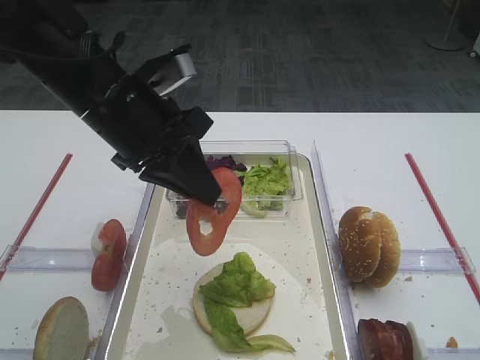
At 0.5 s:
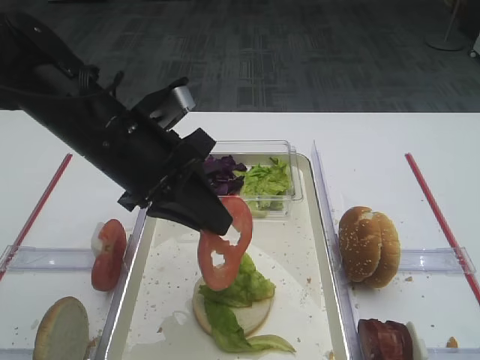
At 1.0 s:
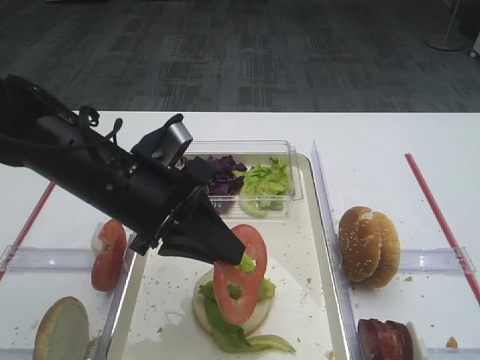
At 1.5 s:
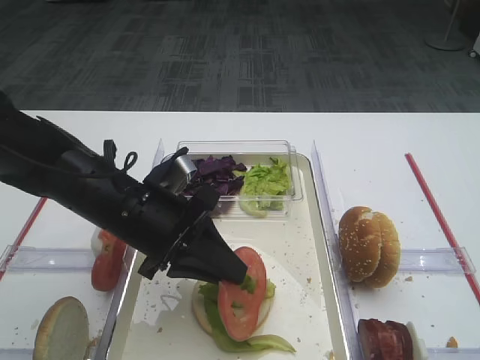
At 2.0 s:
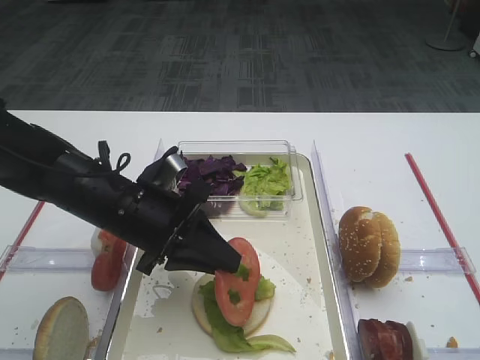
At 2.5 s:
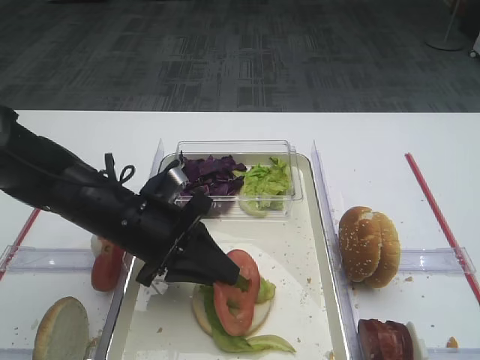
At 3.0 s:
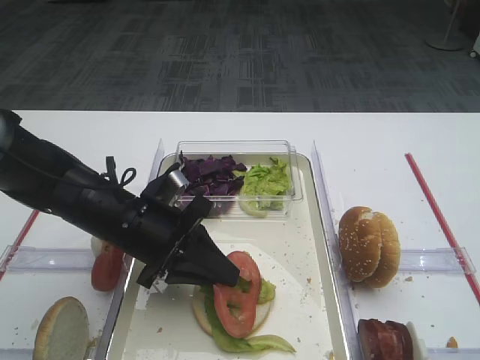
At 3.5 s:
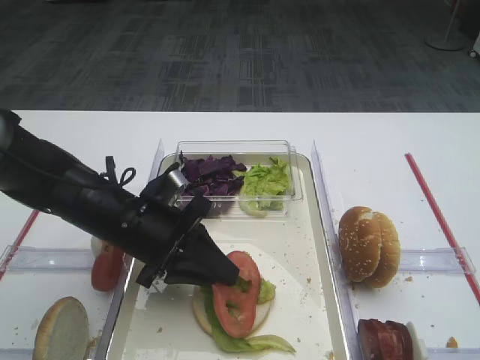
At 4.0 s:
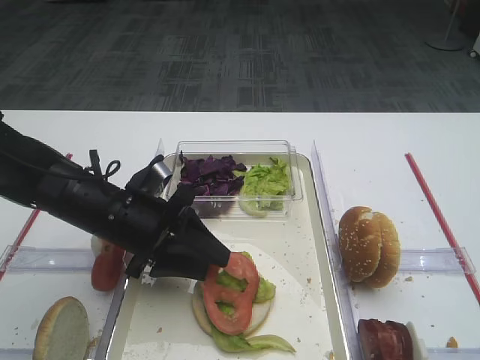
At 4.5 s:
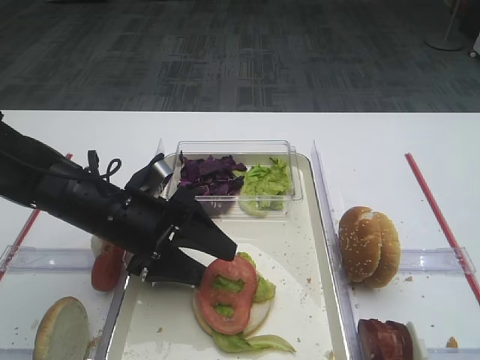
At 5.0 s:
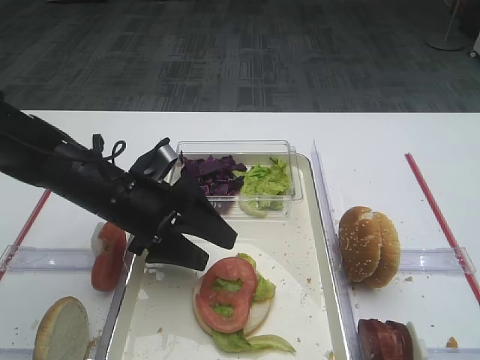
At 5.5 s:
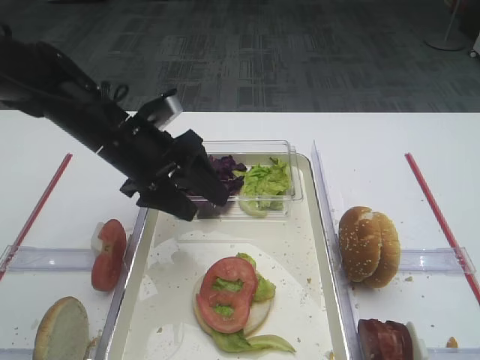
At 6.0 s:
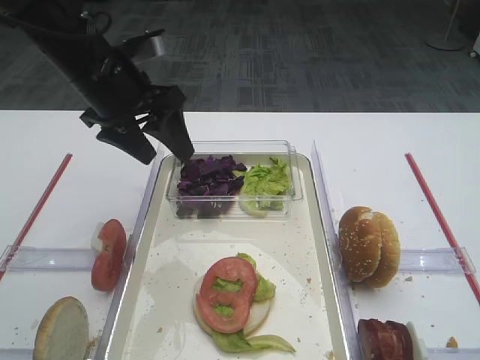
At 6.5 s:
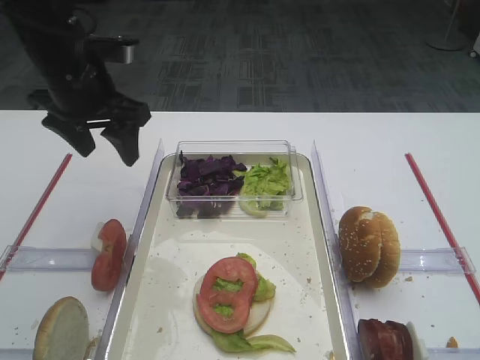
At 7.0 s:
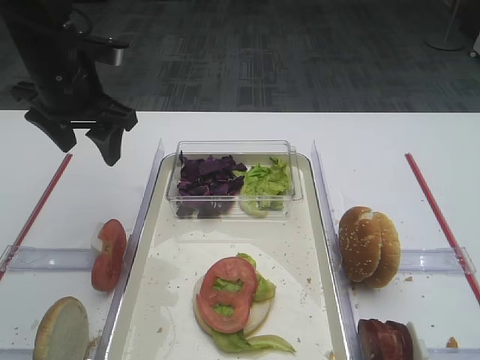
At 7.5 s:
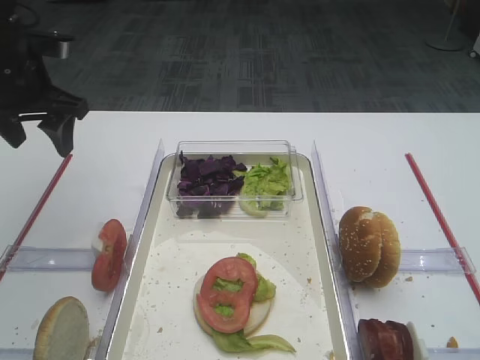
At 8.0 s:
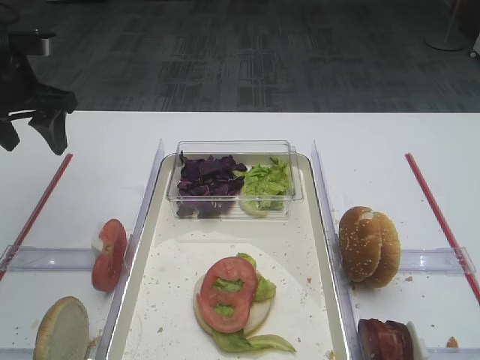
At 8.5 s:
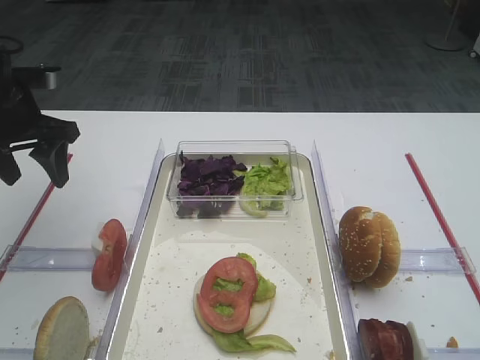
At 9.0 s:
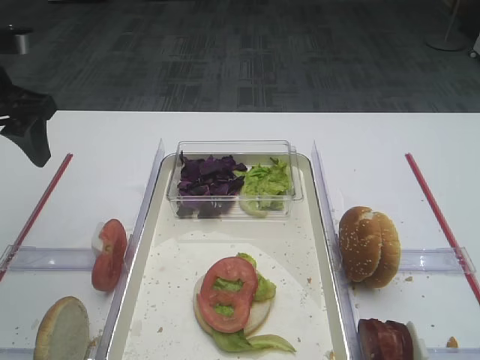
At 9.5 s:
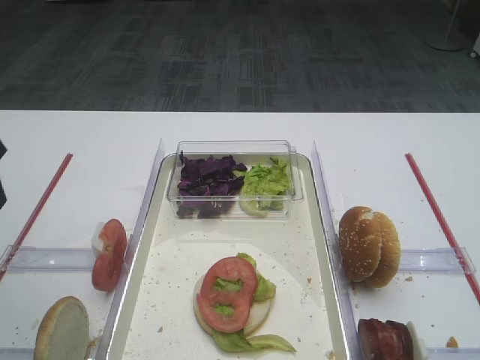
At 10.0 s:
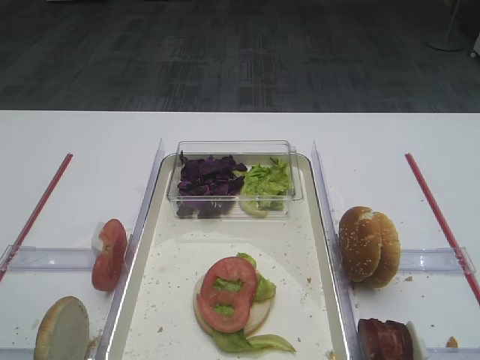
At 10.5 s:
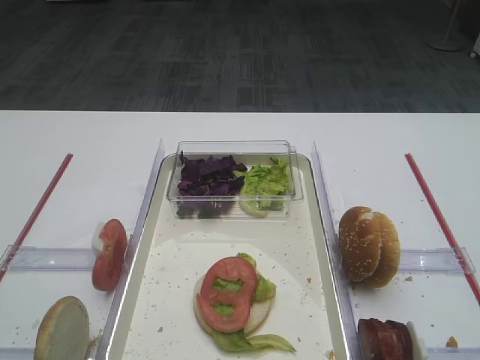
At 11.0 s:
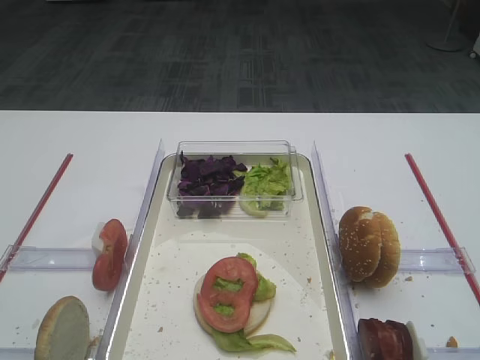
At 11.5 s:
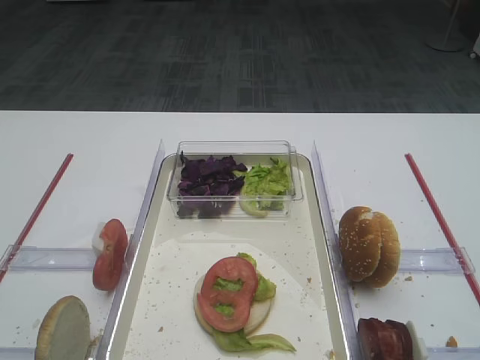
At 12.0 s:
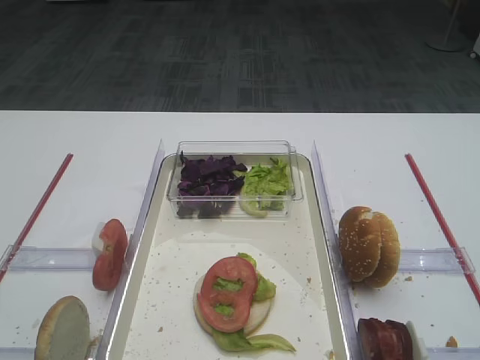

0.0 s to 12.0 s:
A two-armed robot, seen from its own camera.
Step, 0.0 to 4.5 s: Place the tomato slice on the lettuce leaf with the left gripper.
0.0 to 2.0 s: The left gripper moves downward, about 10 cm.
2.0 to 4.0 s: The left gripper opens its fingers.
4.0 to 6.0 s: The left gripper travels upward and forward by roughly 15 cm, and opens.
6.0 to 8.0 s: The left gripper travels to the left by approximately 10 cm.
8.0 to 10.0 s: The left gripper moves backward, about 30 cm.

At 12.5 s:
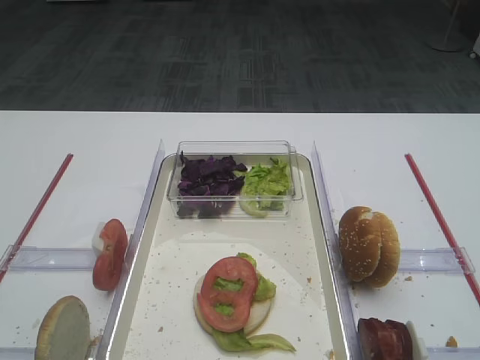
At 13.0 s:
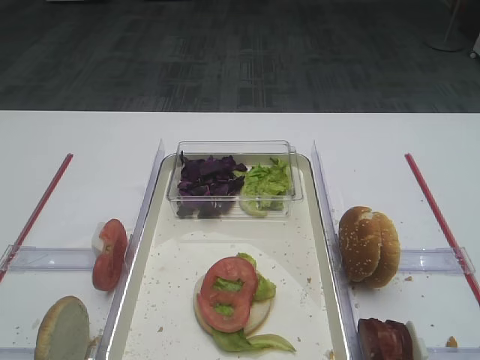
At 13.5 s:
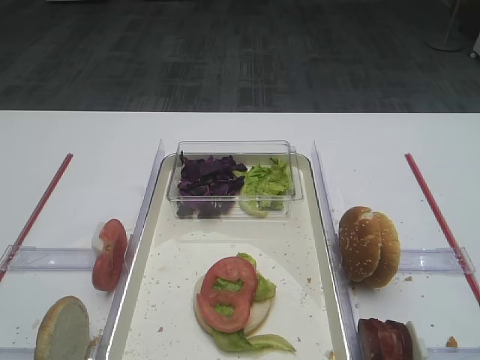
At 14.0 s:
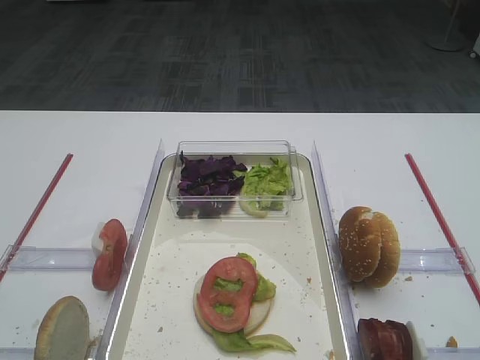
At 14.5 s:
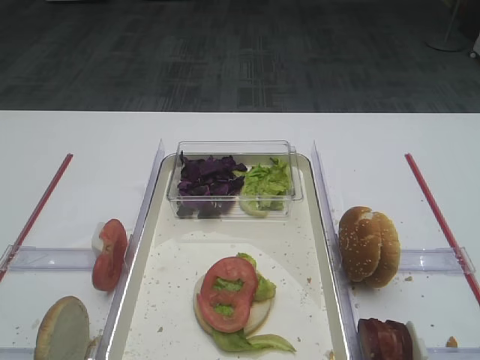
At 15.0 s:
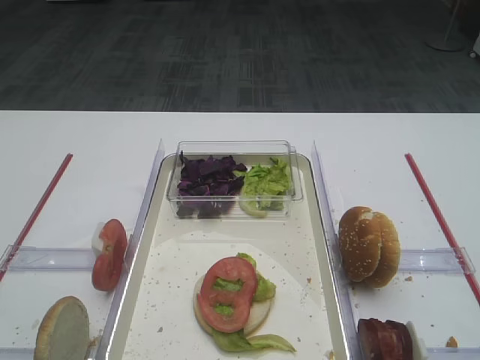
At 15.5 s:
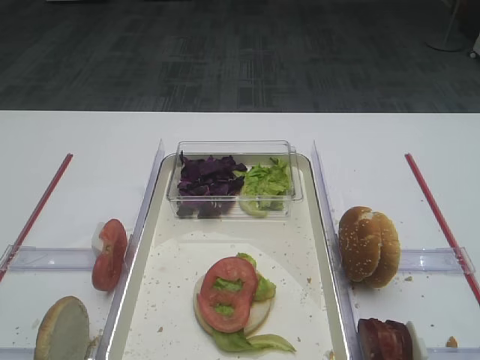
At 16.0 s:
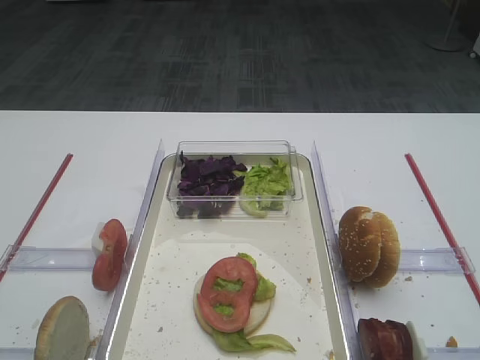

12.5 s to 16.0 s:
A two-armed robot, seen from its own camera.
12.5 to 16.0 s: Both grippers stay about where they are.

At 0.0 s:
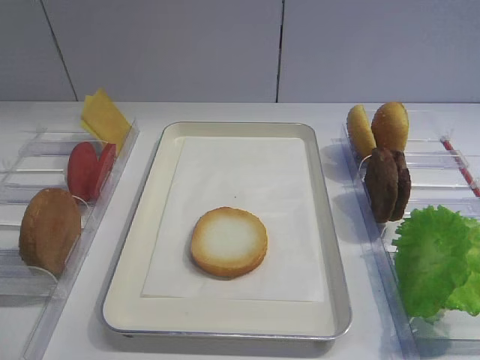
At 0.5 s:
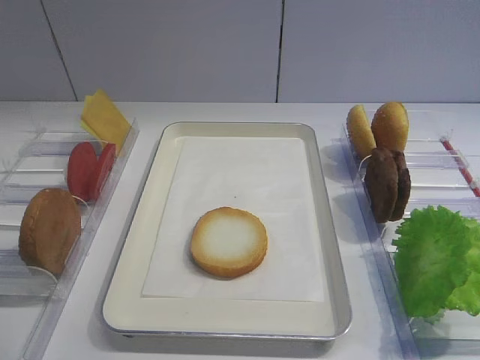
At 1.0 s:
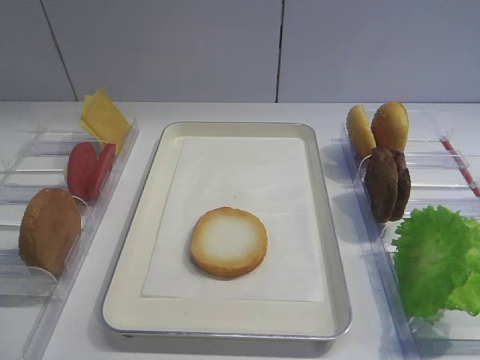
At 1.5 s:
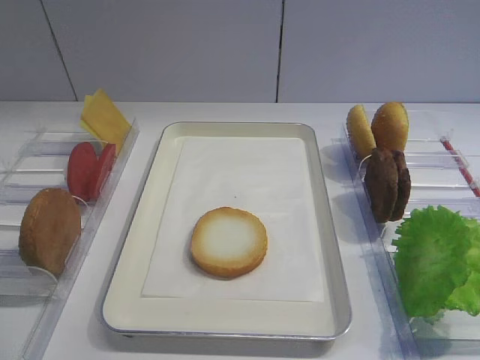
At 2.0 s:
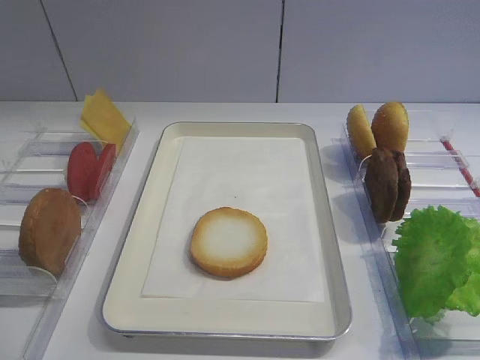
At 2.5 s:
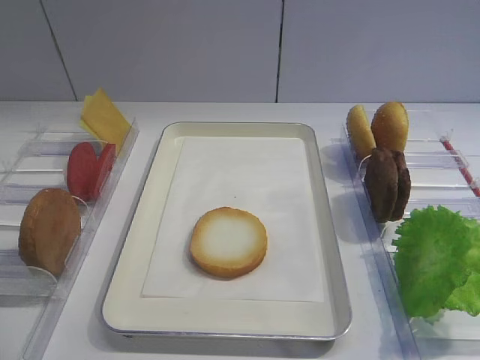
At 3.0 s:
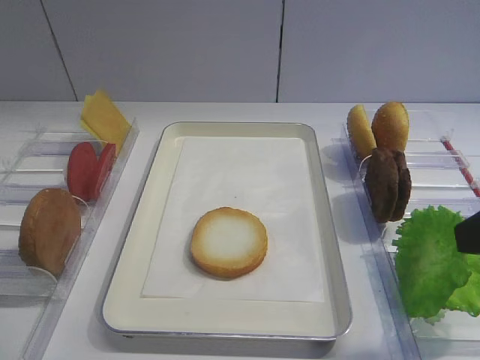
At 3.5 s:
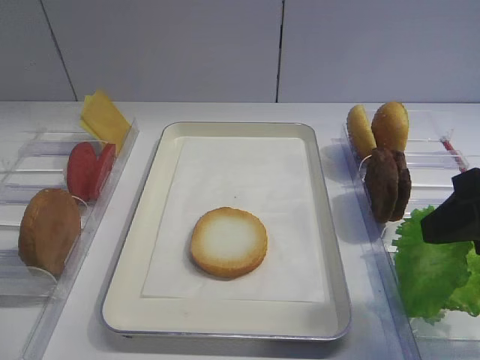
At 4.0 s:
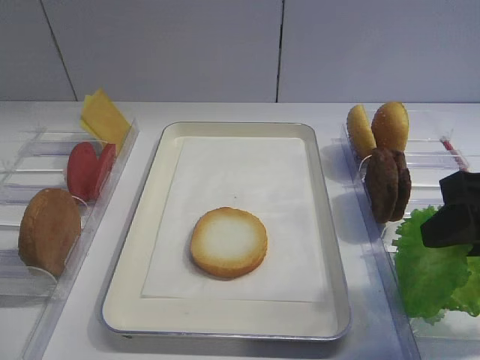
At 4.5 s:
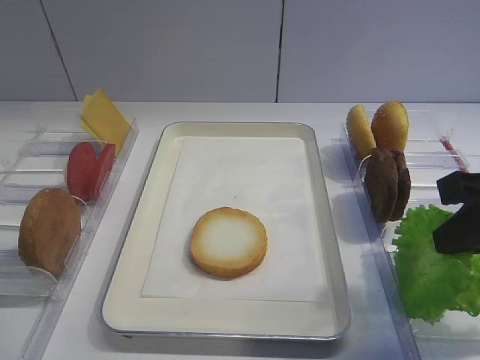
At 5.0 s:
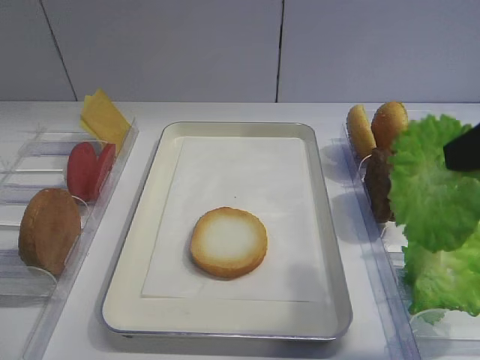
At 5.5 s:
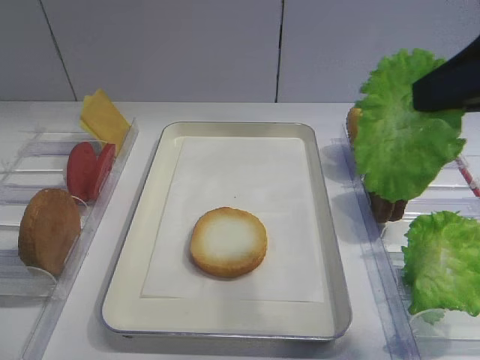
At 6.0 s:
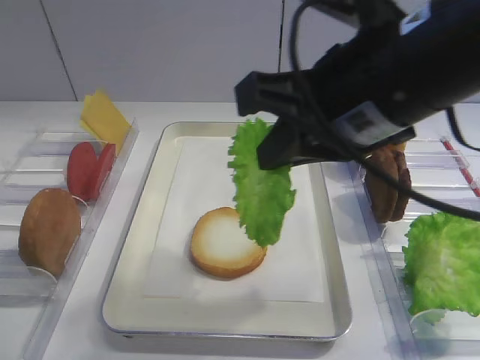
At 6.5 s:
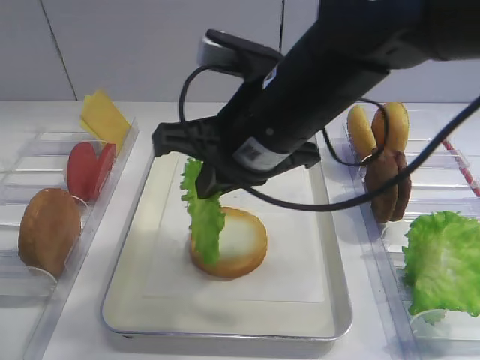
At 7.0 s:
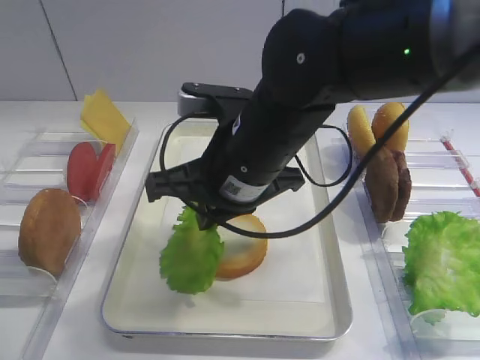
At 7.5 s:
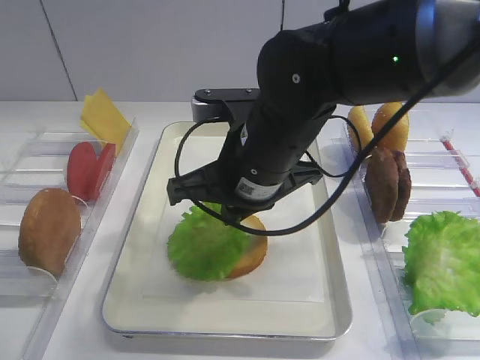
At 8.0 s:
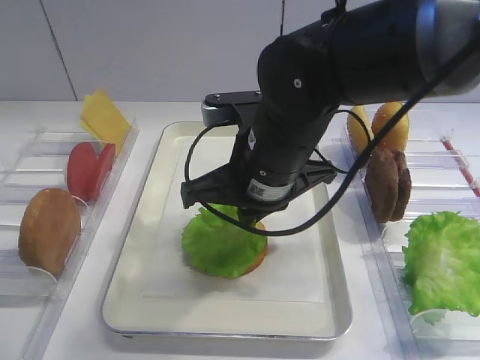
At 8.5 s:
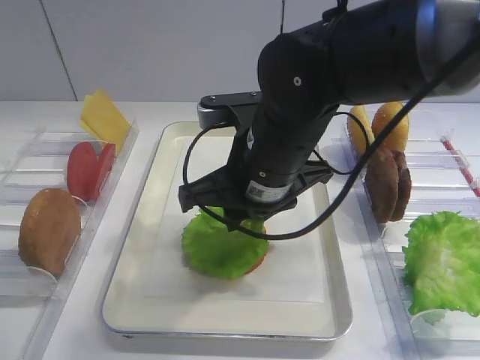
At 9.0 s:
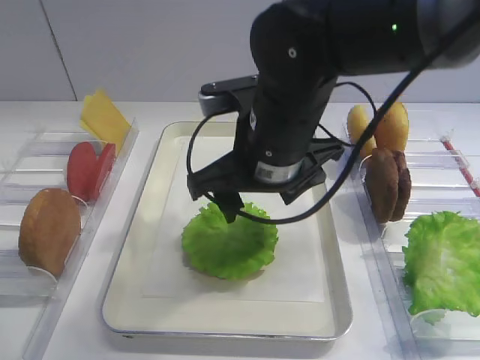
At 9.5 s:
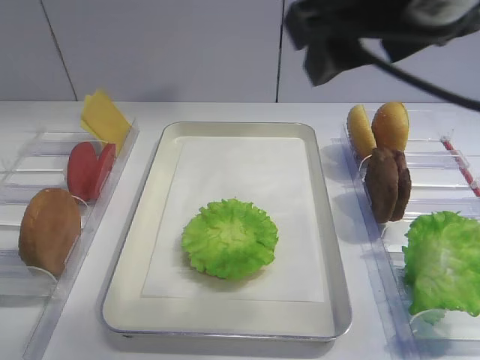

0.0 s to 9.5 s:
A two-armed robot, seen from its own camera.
Step, 0.0 to 4.5 s: Pick up the lettuce leaf with the right gripper.
Step, 5.0 to 8.5 s: Place the lettuce leaf on the bread slice with the right gripper.
2.0 to 4.0 s: The right gripper travels forward by some 20 cm, and closes.
4.0 to 5.5 s: The right gripper heads upward, covering roughly 10 cm, and closes up.
5.5 to 7.5 s: The right gripper heads to the left, downward and forward, covering about 25 cm.
7.5 to 9.5 s: The right gripper goes about 20 cm upward and to the right, and opens.

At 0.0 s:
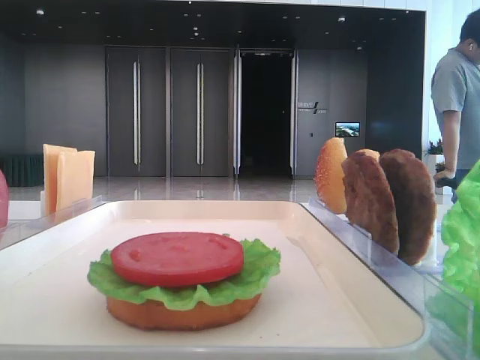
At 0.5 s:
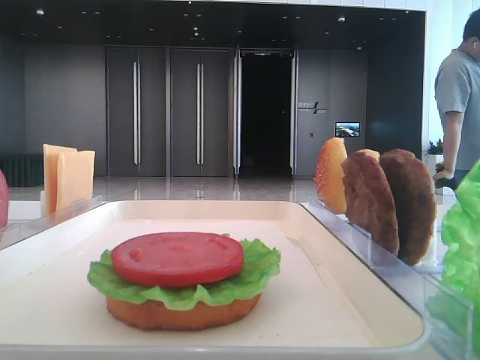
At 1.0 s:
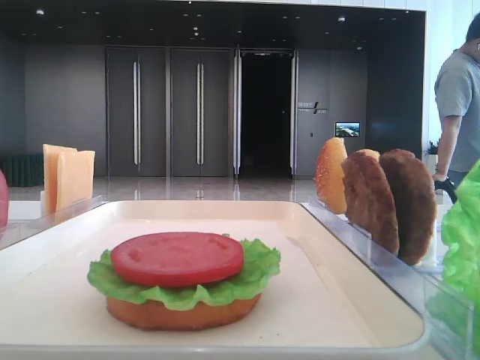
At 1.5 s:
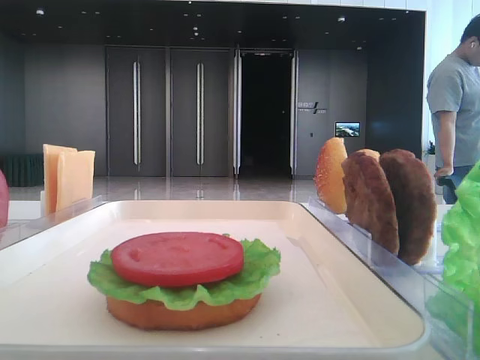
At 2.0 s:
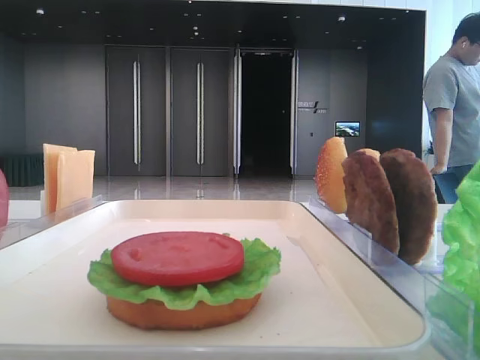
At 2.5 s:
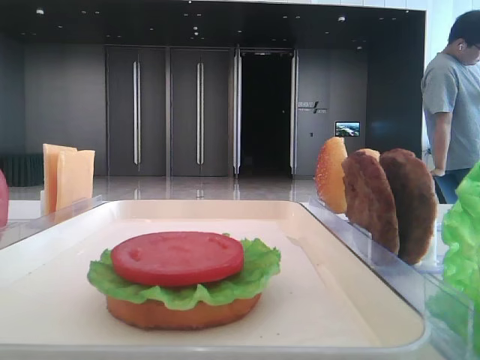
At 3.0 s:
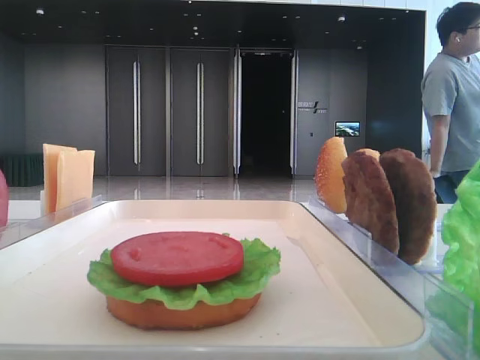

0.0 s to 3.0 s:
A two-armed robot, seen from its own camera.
1.5 to 3.0 s: The right gripper heads forward, covering roughly 20 cm.
